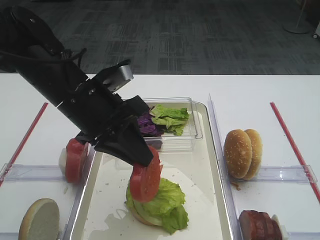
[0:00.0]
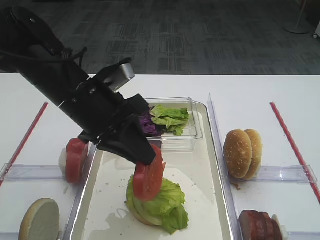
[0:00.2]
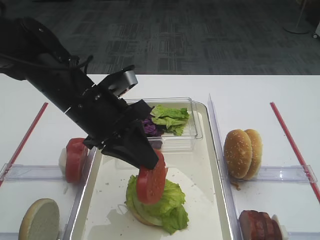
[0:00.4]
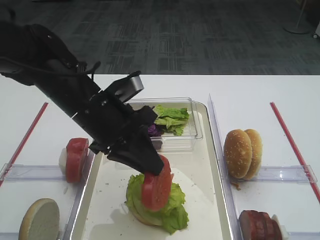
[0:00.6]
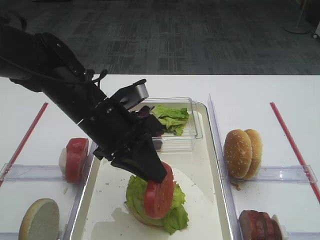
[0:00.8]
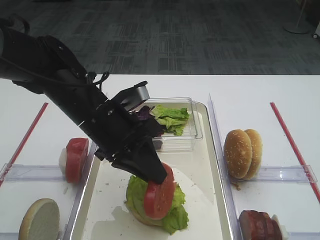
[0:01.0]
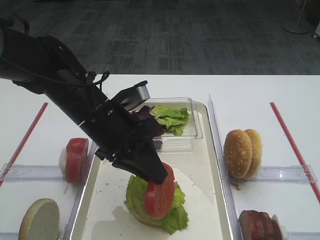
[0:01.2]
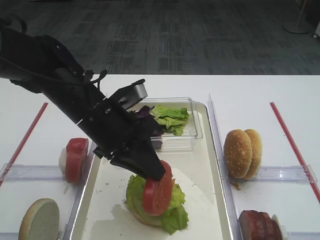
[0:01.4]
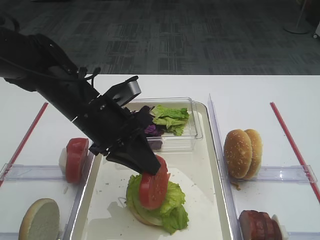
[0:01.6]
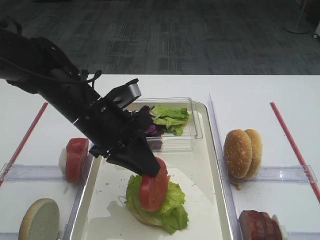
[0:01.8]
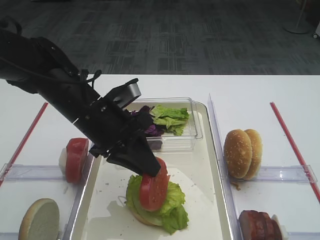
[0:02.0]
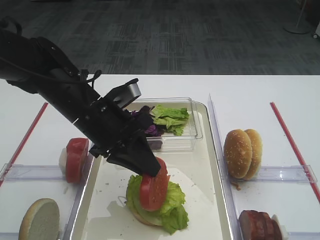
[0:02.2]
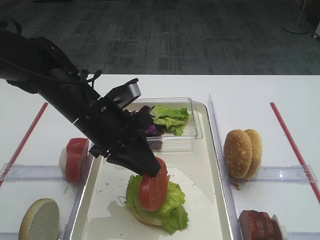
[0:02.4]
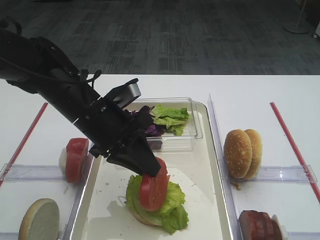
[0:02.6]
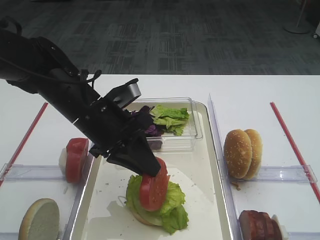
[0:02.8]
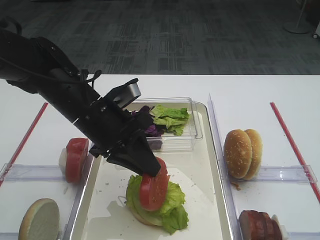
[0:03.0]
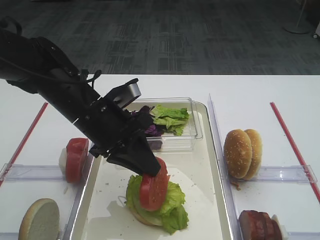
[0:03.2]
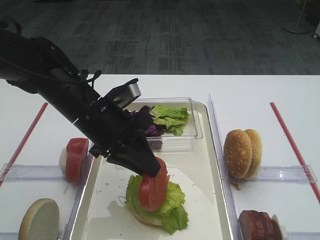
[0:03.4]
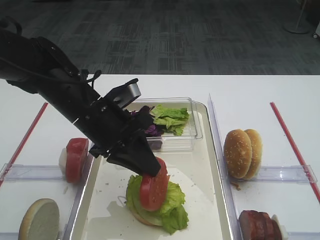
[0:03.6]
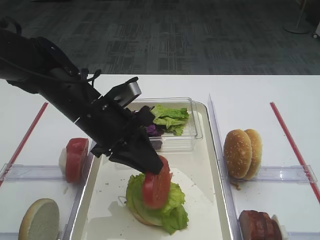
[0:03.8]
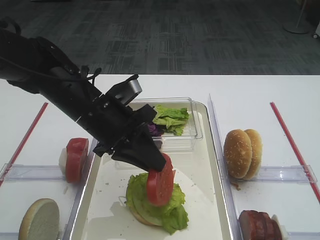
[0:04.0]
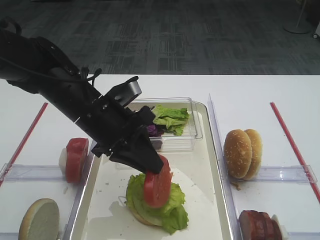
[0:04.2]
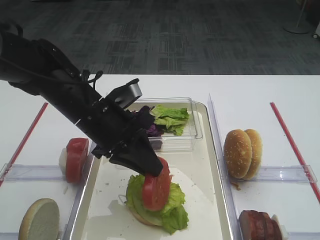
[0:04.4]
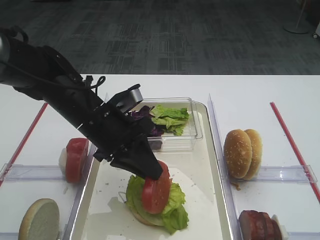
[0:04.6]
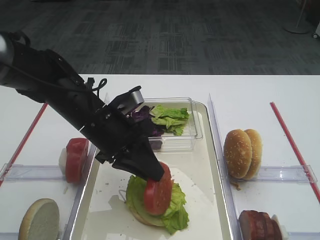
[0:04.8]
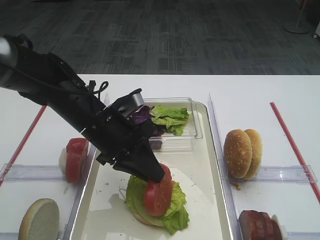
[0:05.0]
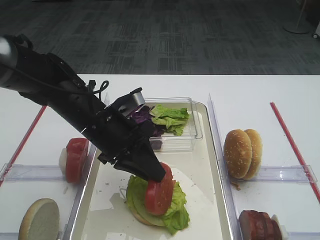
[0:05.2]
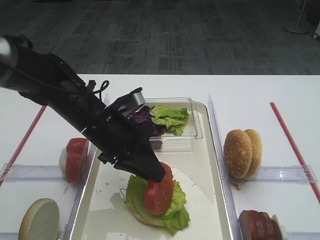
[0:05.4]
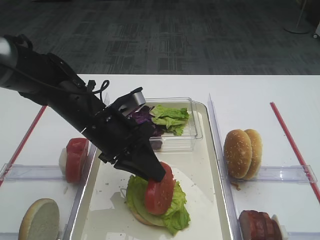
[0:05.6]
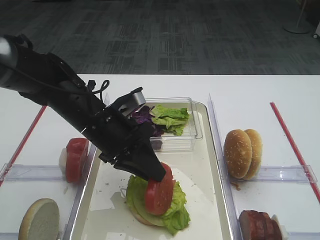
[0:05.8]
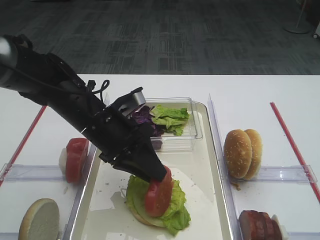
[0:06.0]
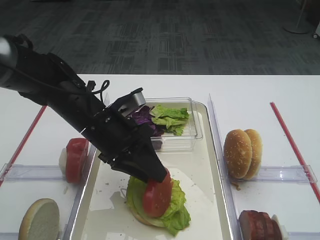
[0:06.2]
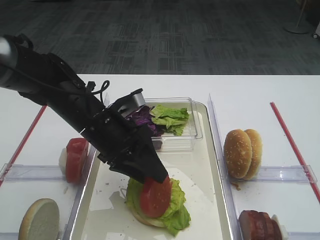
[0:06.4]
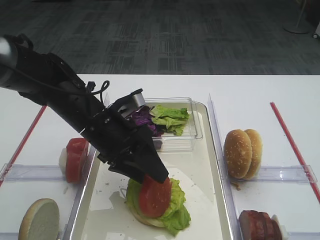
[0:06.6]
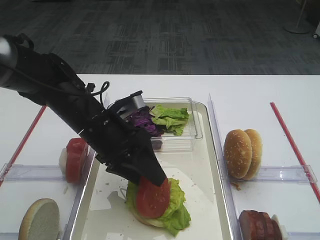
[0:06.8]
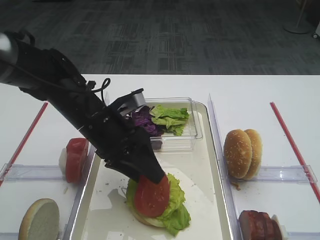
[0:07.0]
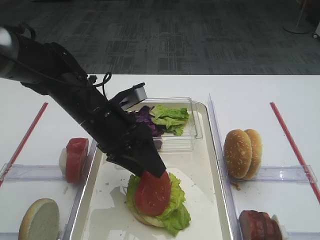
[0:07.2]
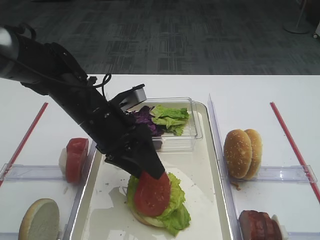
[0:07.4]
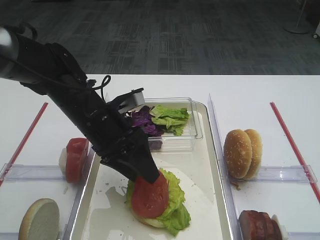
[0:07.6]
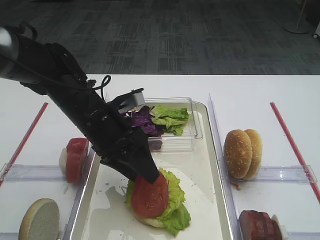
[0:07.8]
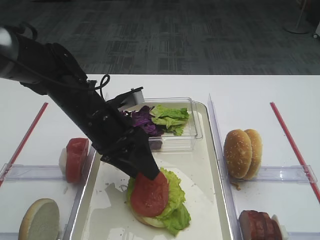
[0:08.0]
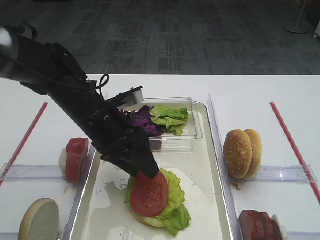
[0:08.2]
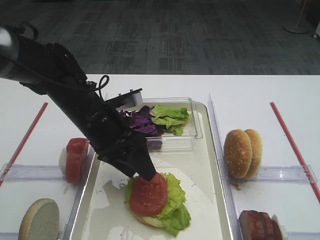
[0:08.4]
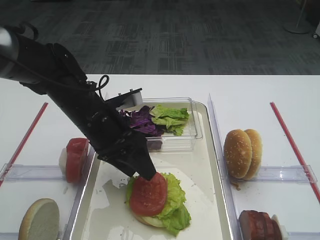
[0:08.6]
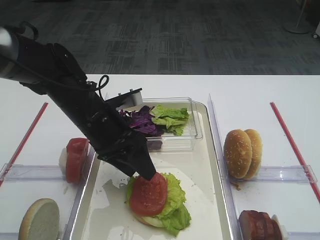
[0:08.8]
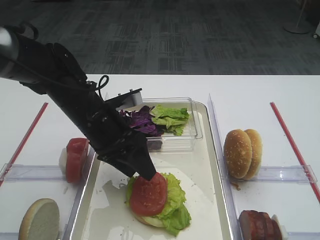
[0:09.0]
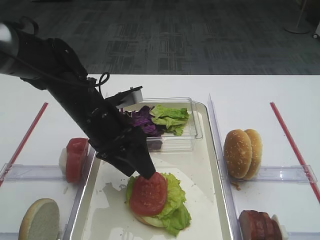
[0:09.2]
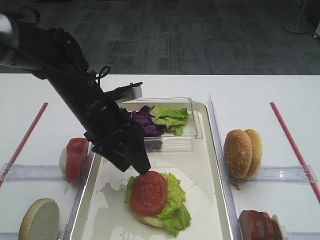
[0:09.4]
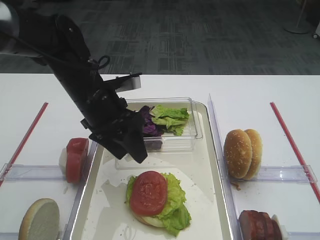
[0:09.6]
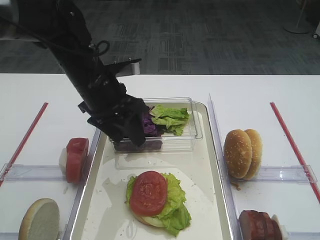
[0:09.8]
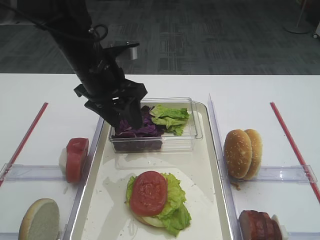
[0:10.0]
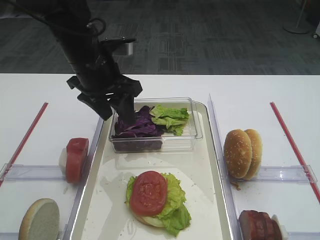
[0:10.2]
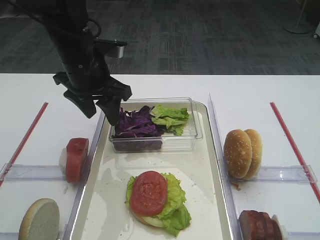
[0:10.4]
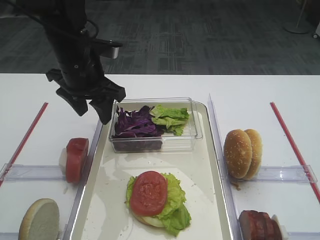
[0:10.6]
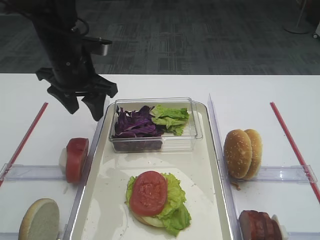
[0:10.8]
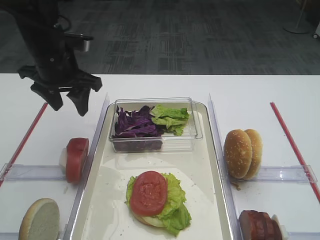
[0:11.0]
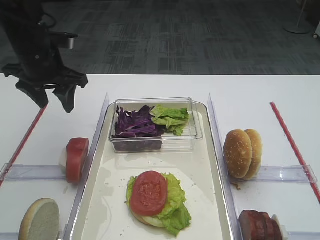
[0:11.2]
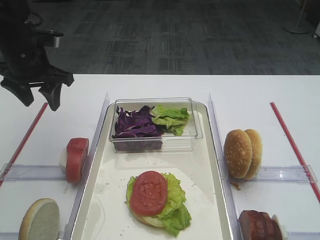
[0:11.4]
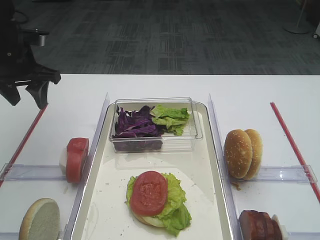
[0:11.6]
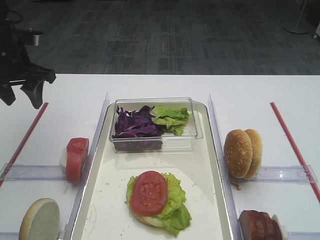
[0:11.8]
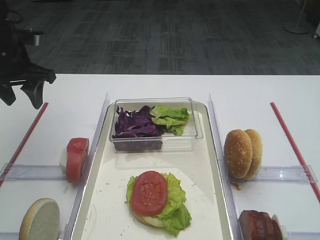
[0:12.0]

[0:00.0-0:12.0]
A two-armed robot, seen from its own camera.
Step, 0:00.0 to 0:08.6: Place the tomato slice on the lettuce leaf with the left gripper.
0:00.0 to 0:01.6: There are only small adjustments of the grippers.
0:01.6 to 0:04.4: Both grippers stay put.
0:04.4 to 0:06.0: The grippers make only small movements.
0:06.0 to 0:07.6: The left gripper opens.
0:07.6 to 0:09.0: The grippers make only small movements.
0:09.0 to 0:10.4: The left gripper moves upward and forward, some 10 cm.
0:10.4 to 0:12.0: The left gripper travels to the left by roughly 15 cm.

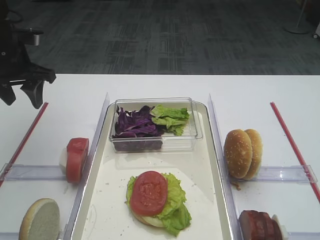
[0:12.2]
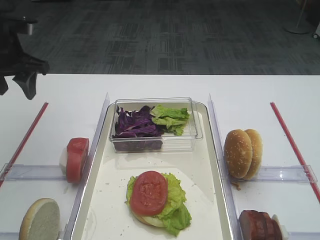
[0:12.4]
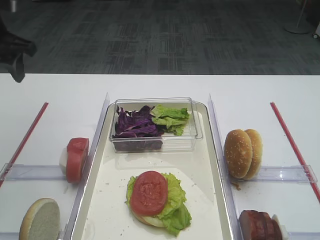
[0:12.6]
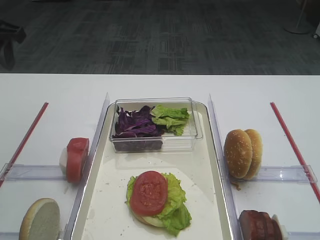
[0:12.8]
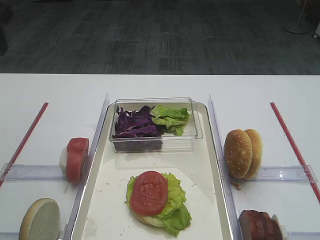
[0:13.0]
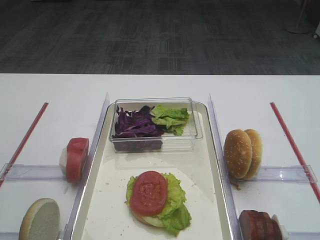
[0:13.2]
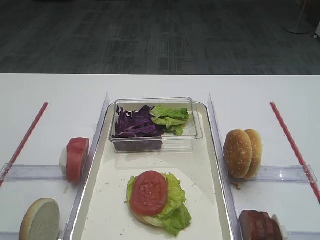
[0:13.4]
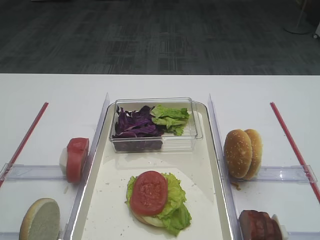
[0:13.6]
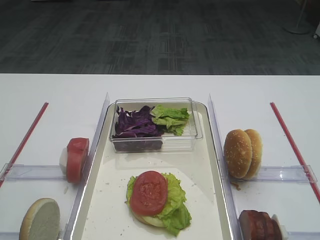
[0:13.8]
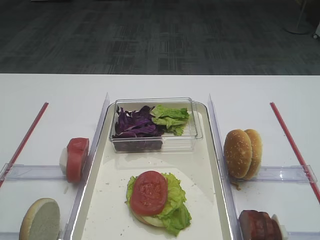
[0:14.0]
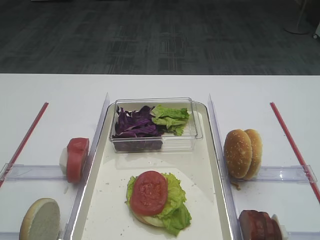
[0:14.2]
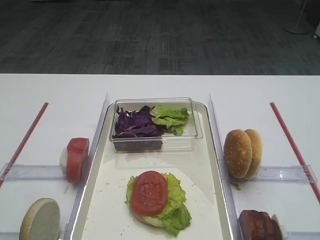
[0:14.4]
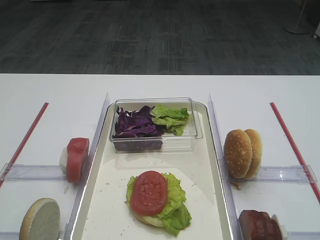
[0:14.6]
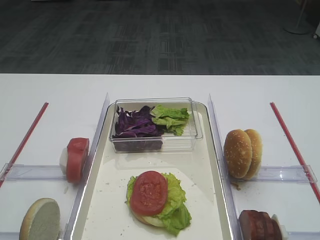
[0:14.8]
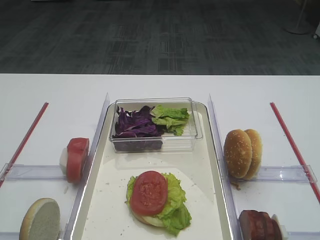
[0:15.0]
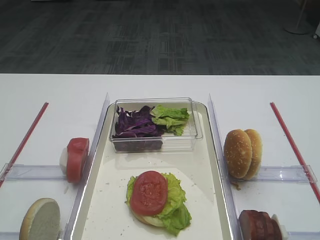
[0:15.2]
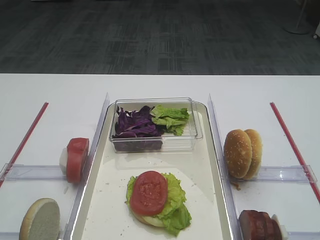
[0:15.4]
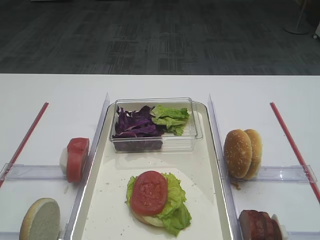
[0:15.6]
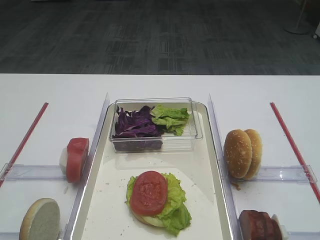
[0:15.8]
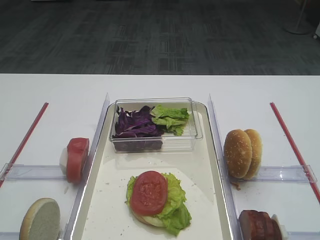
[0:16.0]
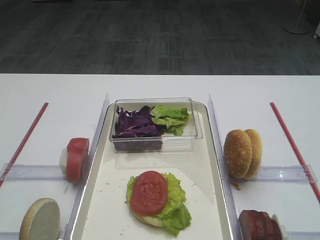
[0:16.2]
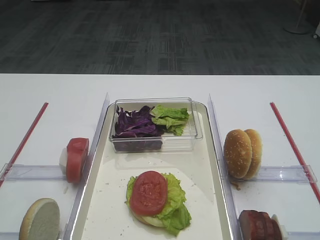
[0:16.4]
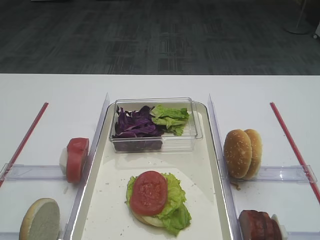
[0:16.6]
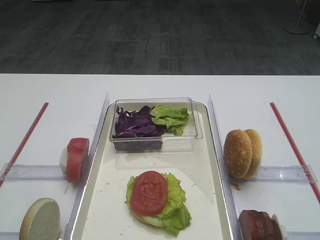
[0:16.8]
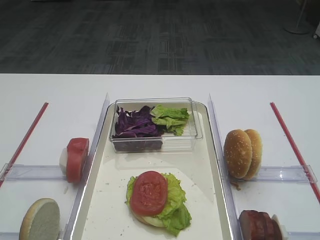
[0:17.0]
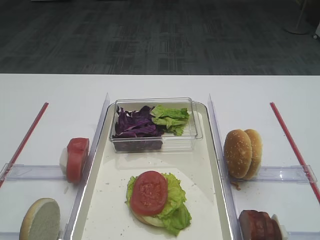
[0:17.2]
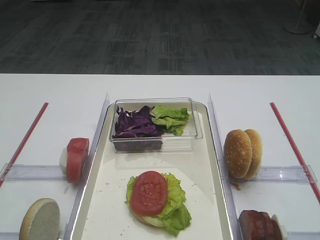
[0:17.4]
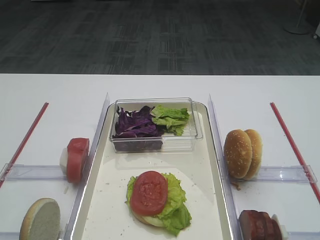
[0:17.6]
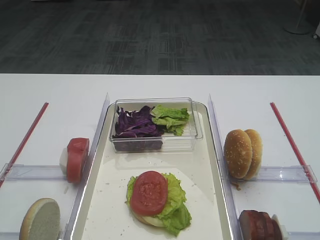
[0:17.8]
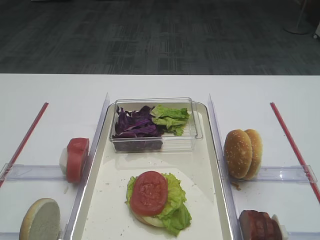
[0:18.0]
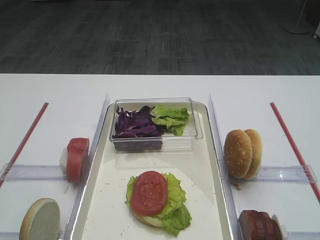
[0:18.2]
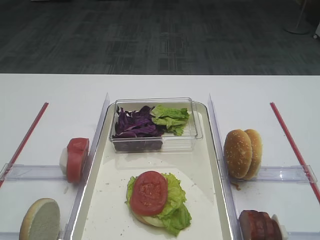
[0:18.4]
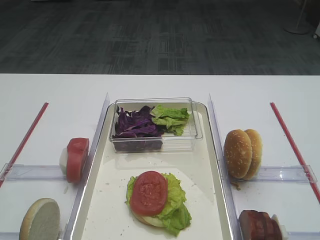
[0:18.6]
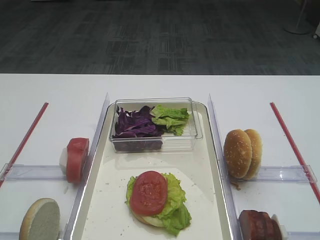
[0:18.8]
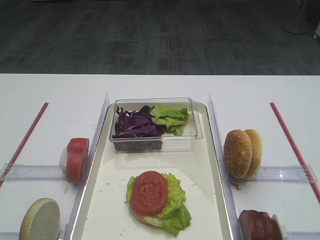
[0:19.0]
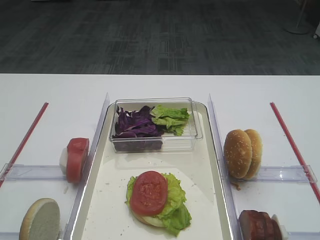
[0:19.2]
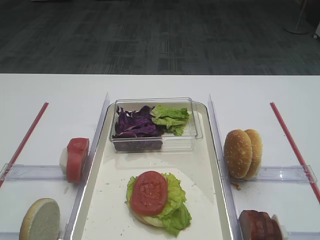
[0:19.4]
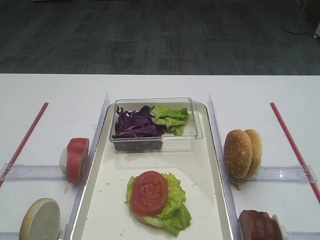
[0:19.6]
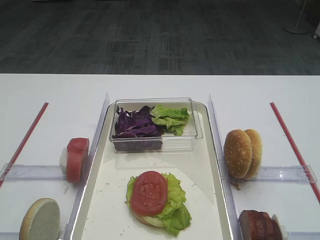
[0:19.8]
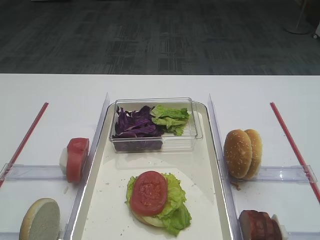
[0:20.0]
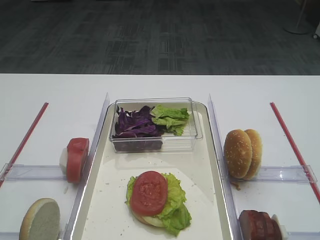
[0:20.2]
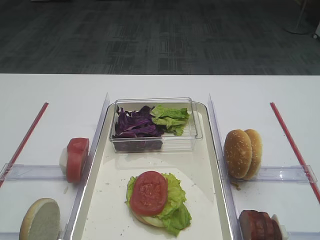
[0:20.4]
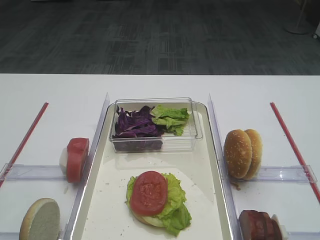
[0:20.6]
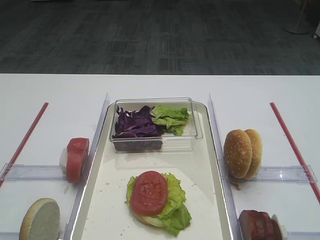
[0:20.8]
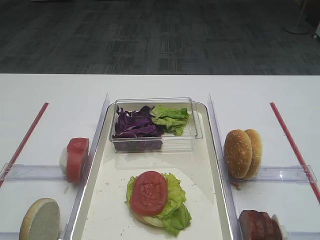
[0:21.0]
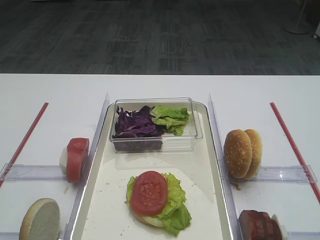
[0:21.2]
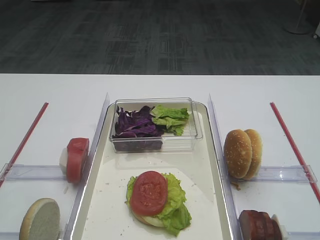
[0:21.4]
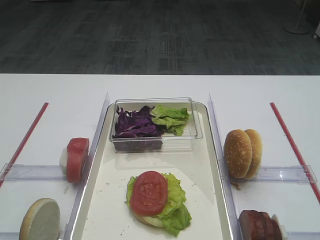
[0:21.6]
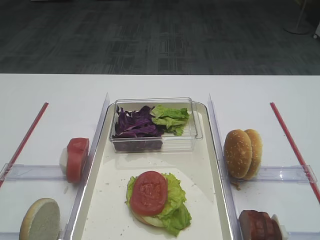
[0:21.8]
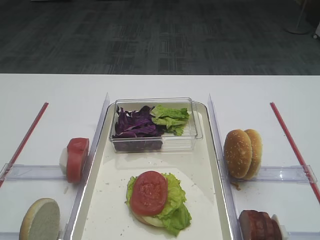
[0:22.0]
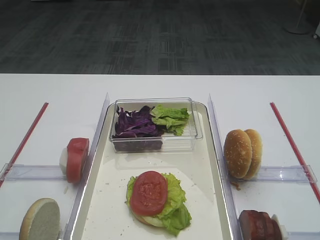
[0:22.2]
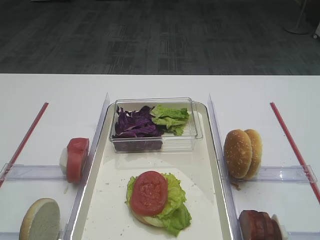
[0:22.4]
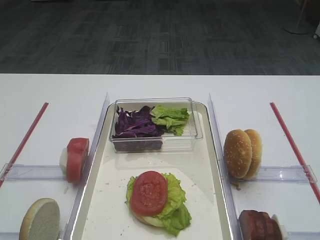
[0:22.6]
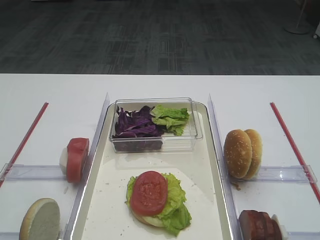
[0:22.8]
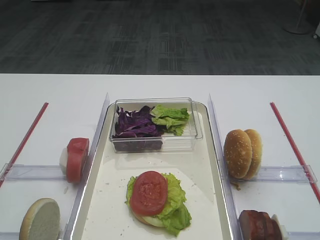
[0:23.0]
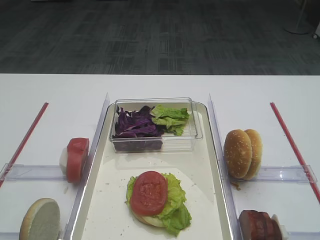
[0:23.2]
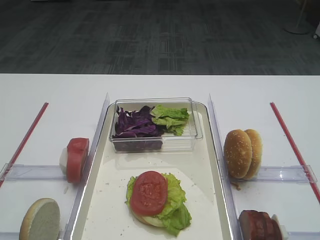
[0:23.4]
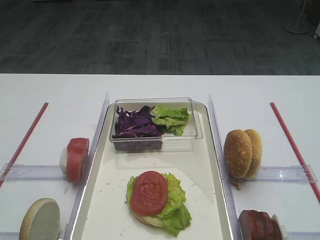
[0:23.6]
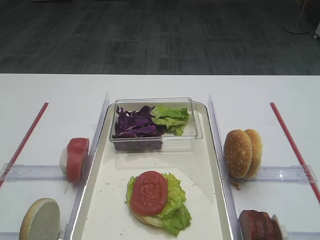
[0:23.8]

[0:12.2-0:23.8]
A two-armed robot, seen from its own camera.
0:12.2 to 0:13.6: The left gripper is displaced backward and upward by about 30 cm.
0:18.0 to 0:23.8: Both grippers stay put.
